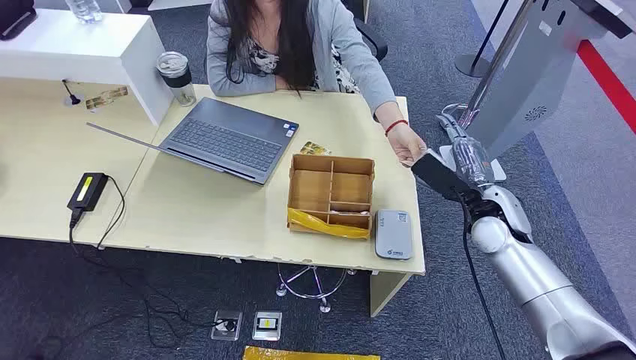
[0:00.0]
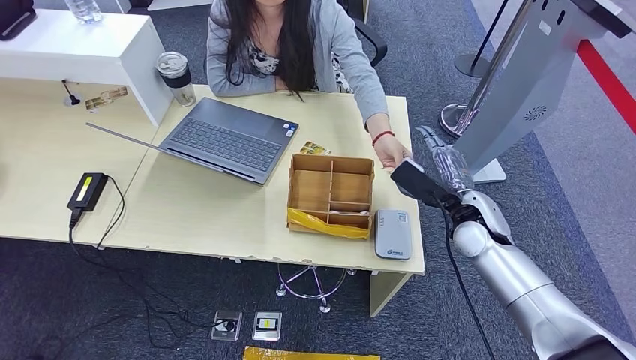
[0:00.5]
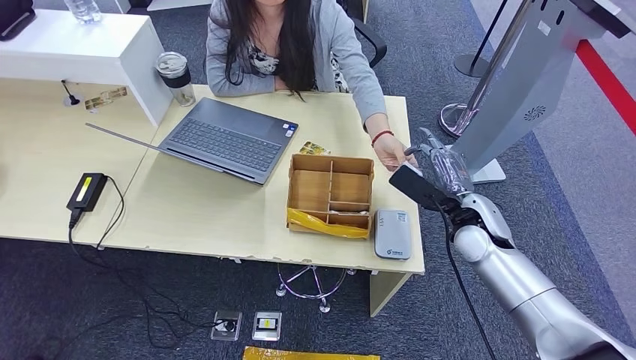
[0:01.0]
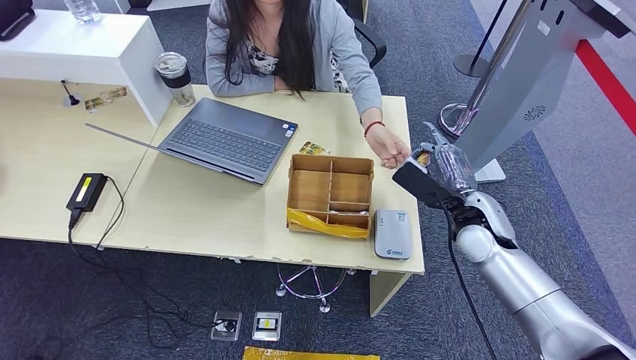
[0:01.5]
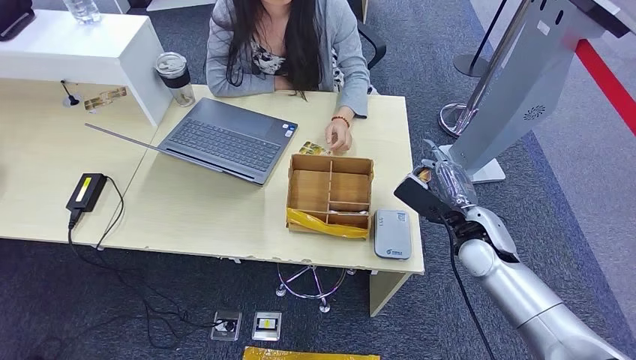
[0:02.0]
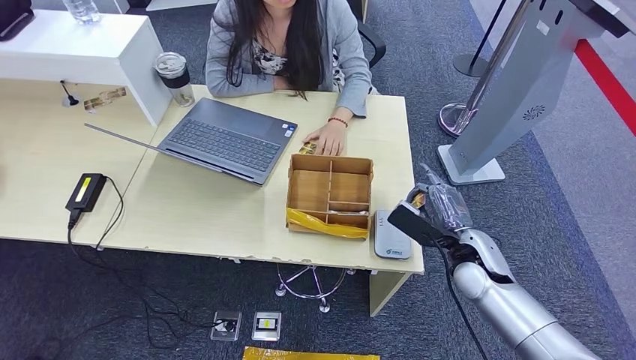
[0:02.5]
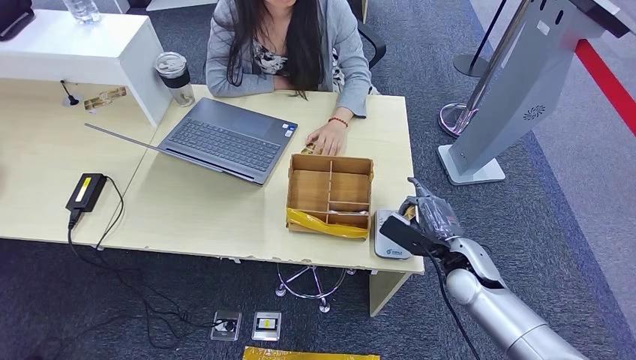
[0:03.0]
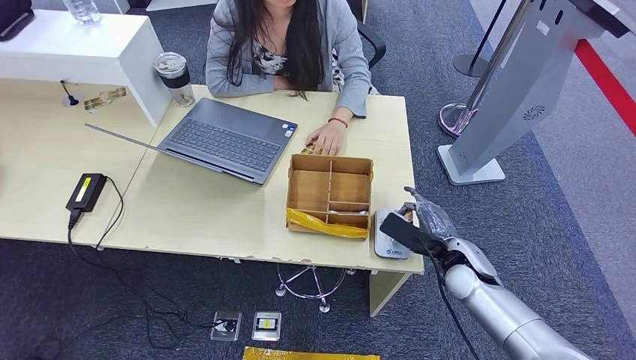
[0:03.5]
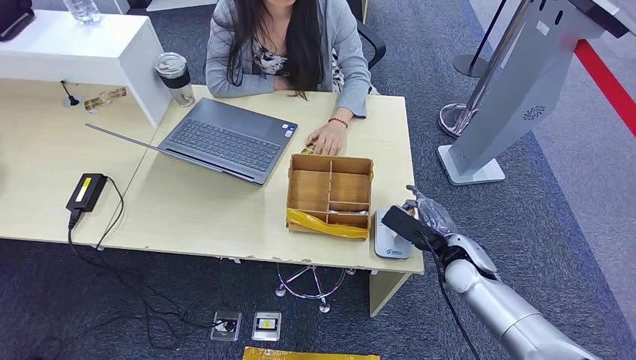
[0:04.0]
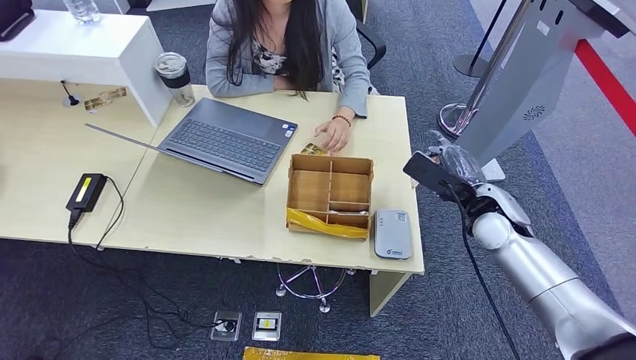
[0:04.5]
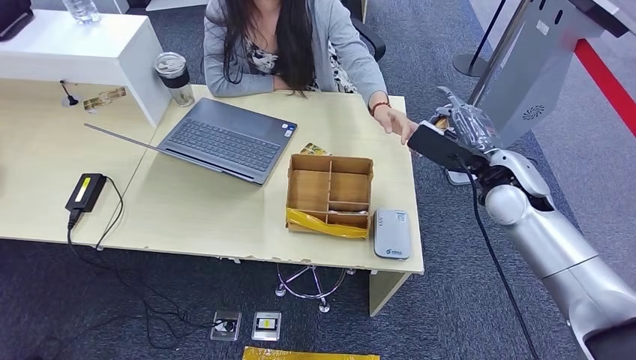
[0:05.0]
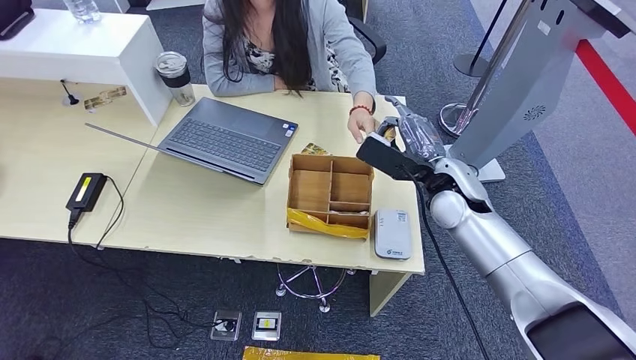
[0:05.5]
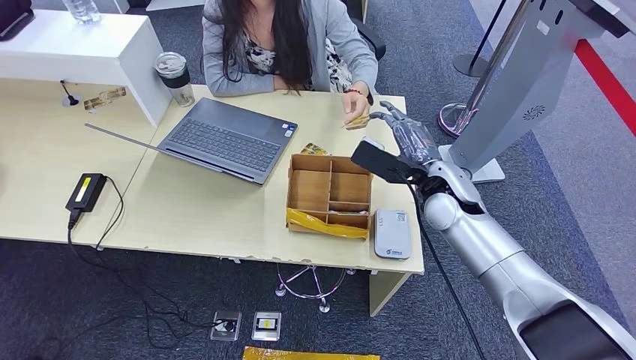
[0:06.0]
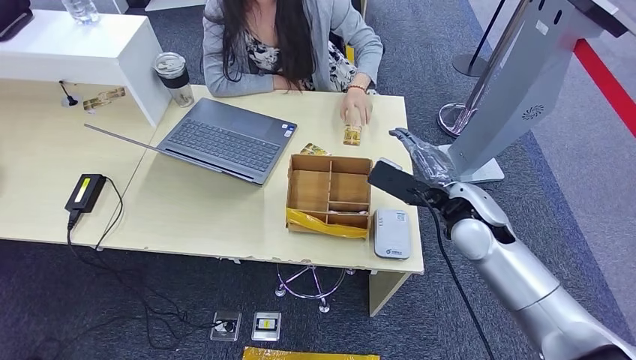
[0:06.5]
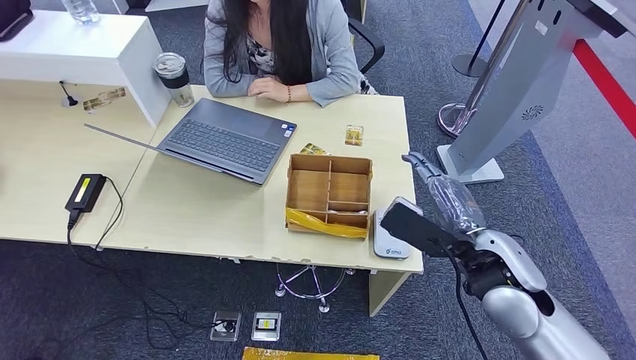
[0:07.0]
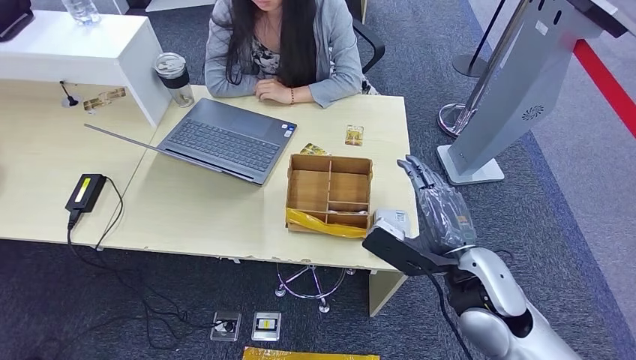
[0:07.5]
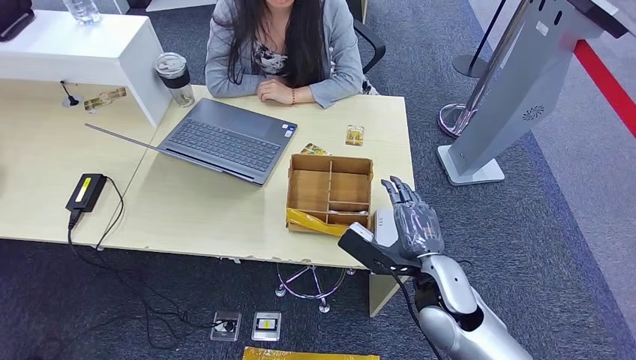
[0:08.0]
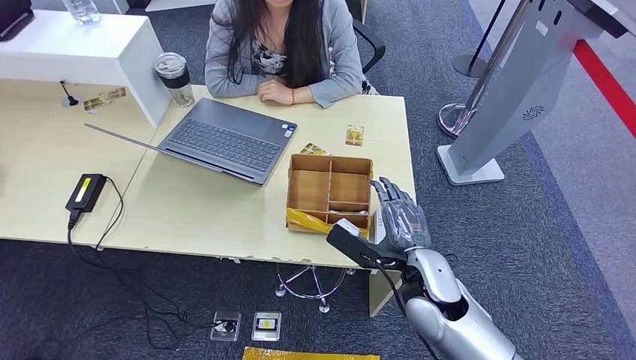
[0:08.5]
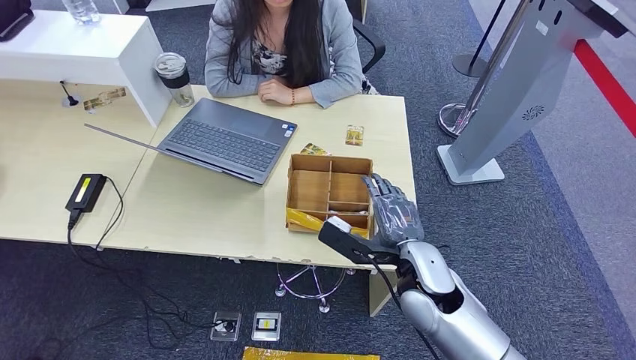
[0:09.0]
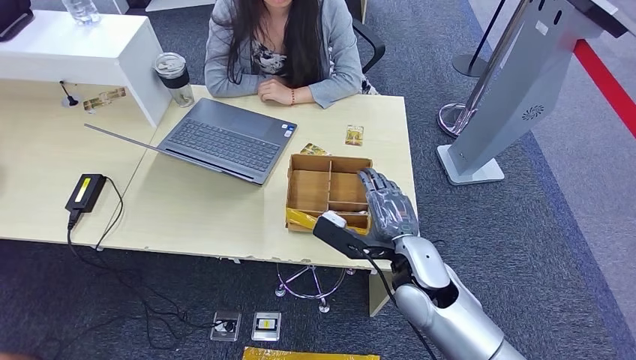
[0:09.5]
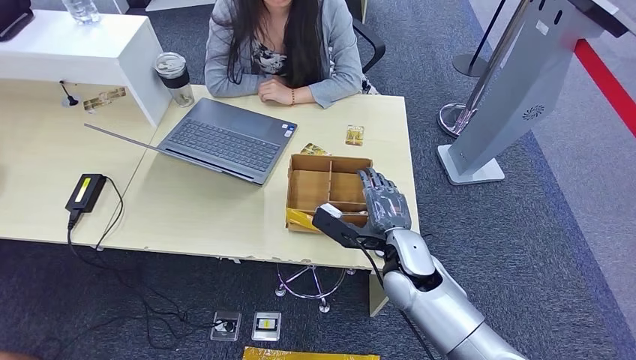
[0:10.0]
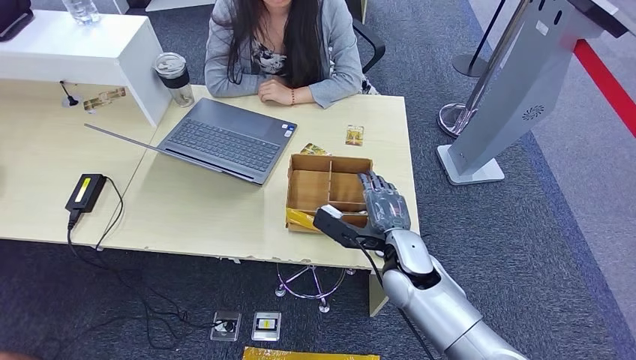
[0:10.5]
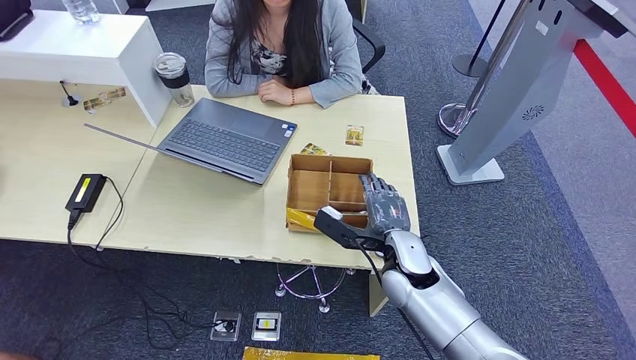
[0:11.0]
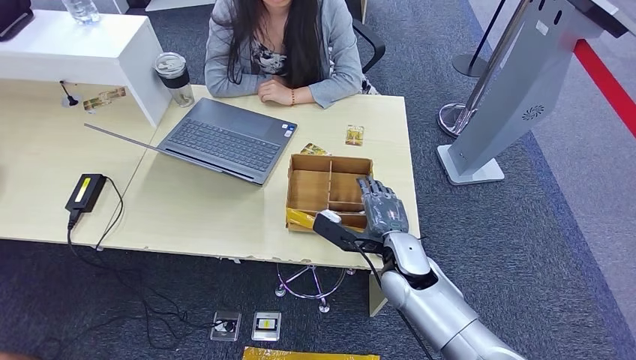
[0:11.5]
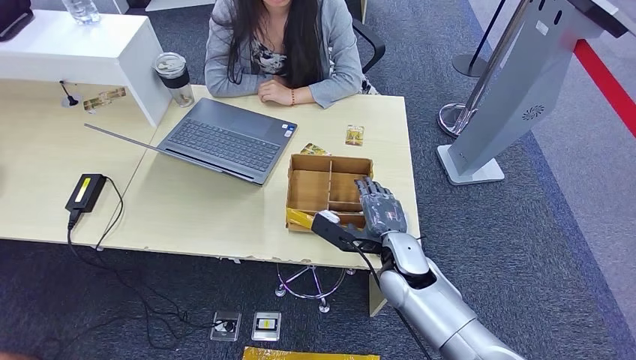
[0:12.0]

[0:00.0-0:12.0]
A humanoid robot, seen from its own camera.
Step, 0:00.0 to 0:01.5: Take the ID card from the person's hand.
Step, 0:02.0 to 0:03.5: Place the ID card on the card reader.
Step, 0:04.0 to 0:05.5: Hand the ID card to the person.
0:02.0 to 0:04.0: The right hand heads downward, covering some 5 cm.
0:04.0 to 0:06.0: The right hand heads upward, forward and to the left, covering roughly 15 cm.
0:06.0 to 0:08.0: The right hand moves backward and downward, some 15 cm.
0:08.0 to 0:10.0: The right hand shifts by some 5 cm.
0:10.0 to 0:12.0: The hands stay close to where they were, moving slightly.

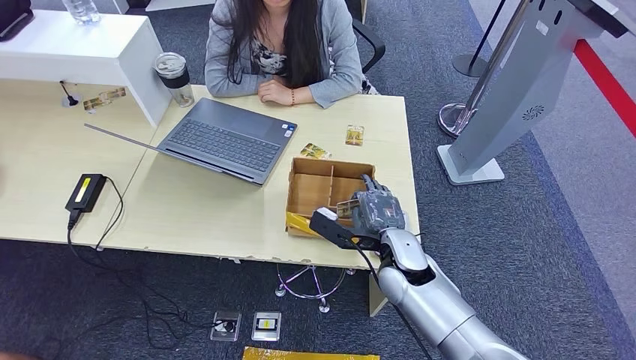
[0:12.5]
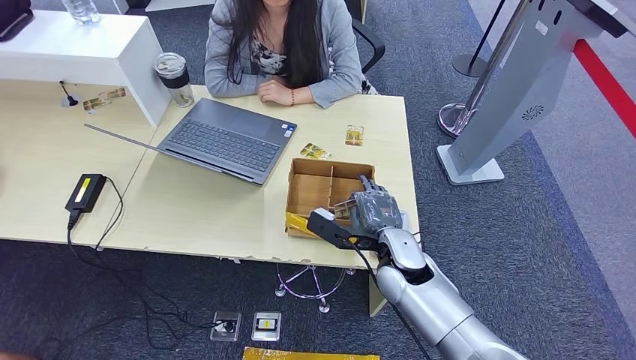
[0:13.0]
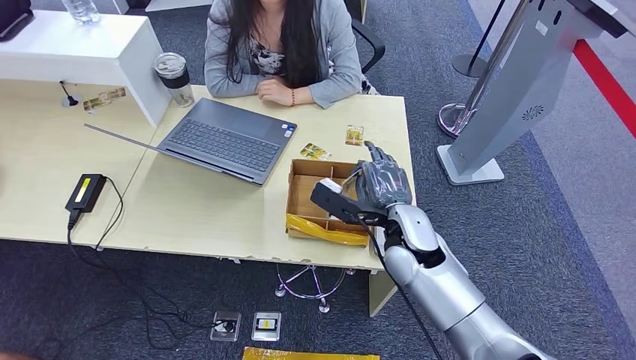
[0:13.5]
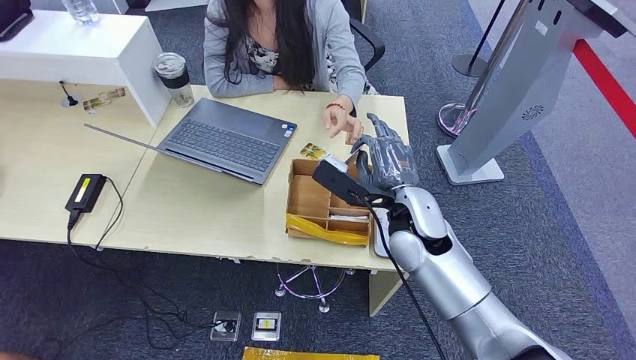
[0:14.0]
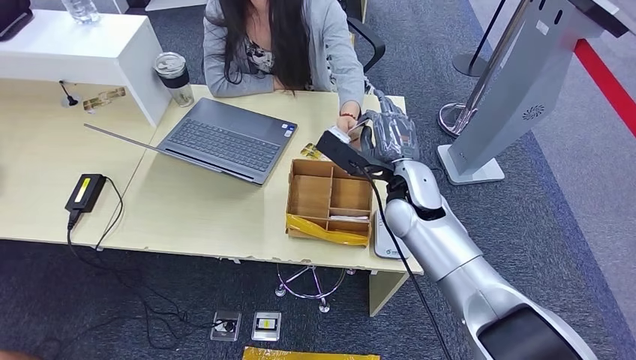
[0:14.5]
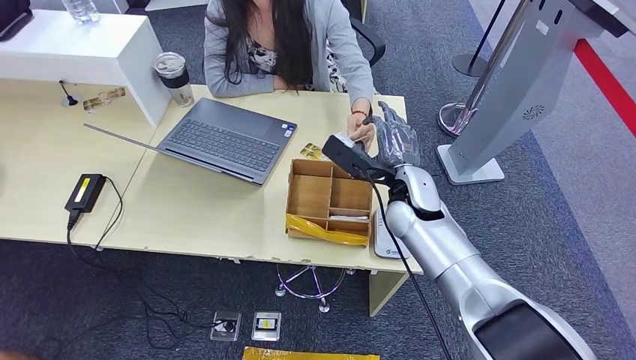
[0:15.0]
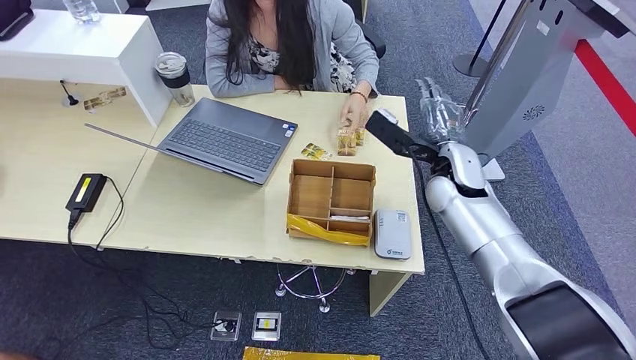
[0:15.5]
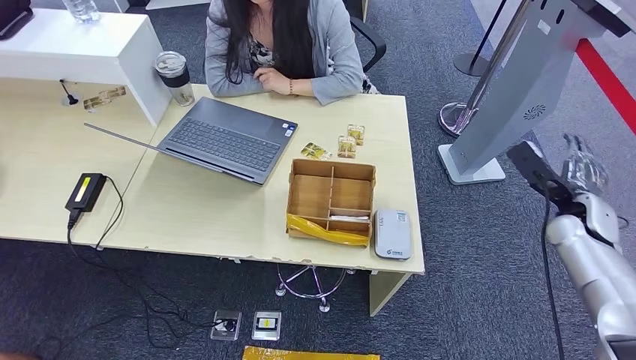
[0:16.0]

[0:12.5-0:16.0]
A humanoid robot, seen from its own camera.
Step, 0:14.0 to 0:16.0: Hand the room key to the person.
0:12.5 to 0:14.5: The right hand travels upward and forward by some 15 cm.
0:14.5 to 0:16.0: The right hand heads to the right, covering roughly 30 cm.
